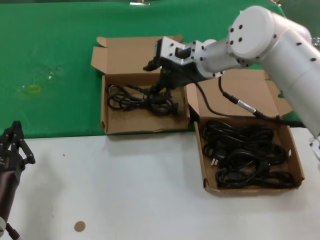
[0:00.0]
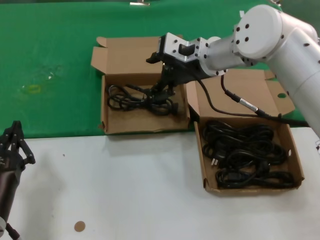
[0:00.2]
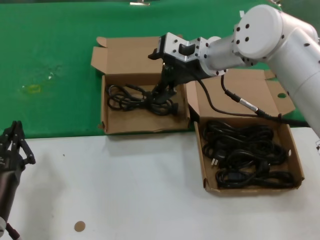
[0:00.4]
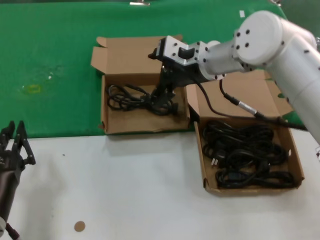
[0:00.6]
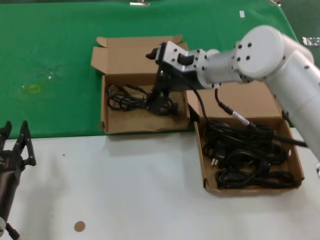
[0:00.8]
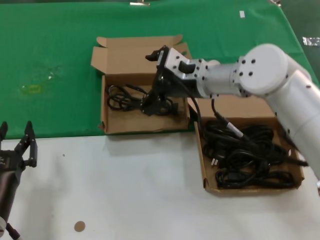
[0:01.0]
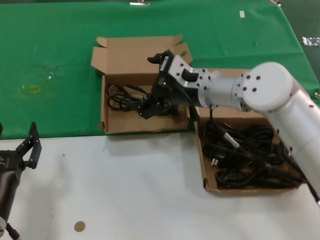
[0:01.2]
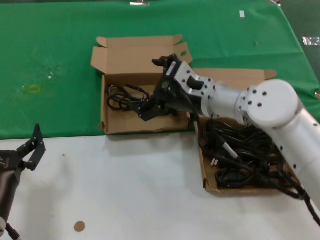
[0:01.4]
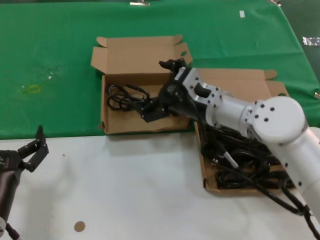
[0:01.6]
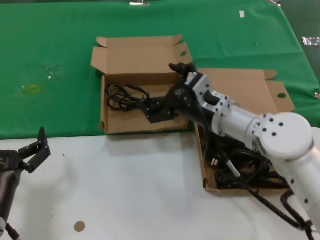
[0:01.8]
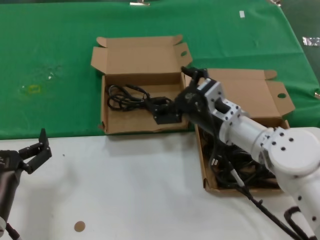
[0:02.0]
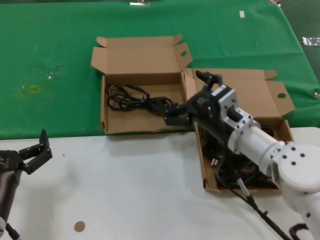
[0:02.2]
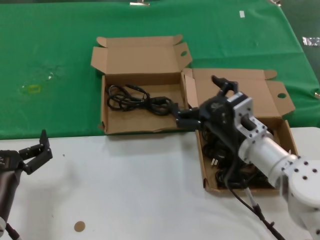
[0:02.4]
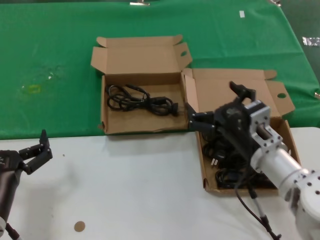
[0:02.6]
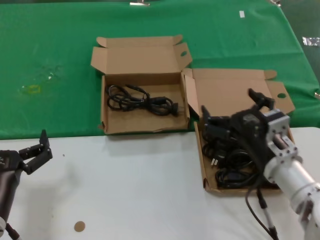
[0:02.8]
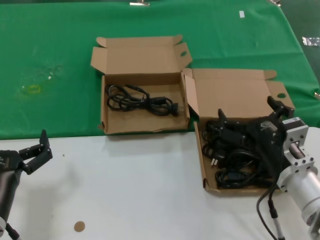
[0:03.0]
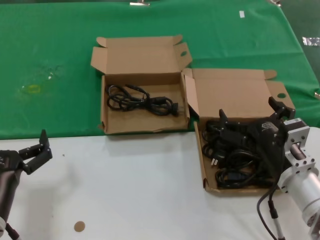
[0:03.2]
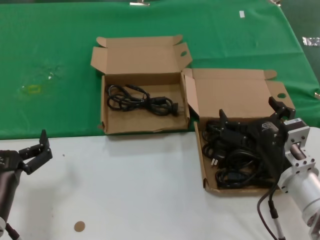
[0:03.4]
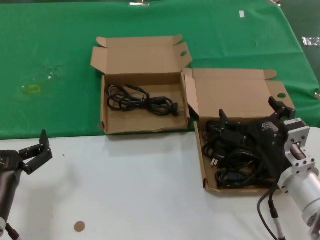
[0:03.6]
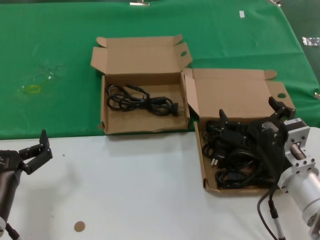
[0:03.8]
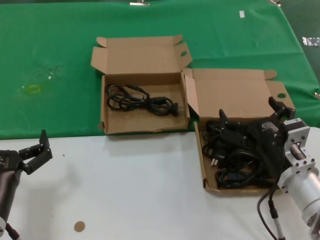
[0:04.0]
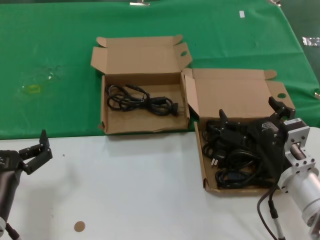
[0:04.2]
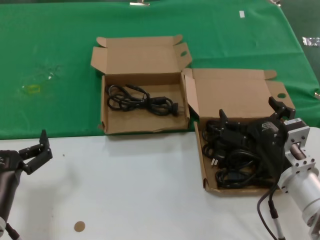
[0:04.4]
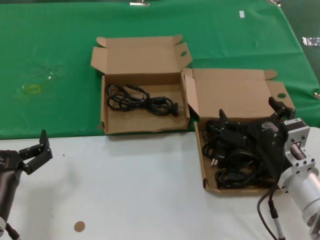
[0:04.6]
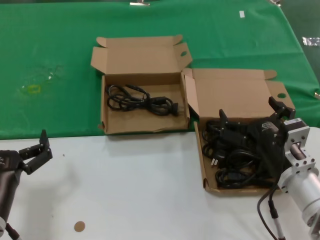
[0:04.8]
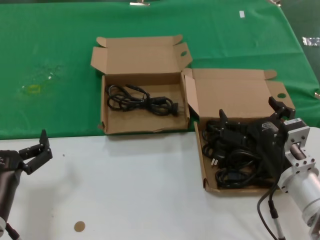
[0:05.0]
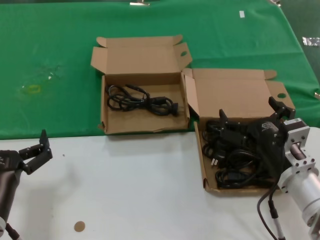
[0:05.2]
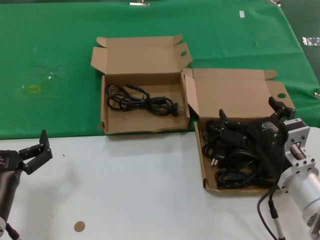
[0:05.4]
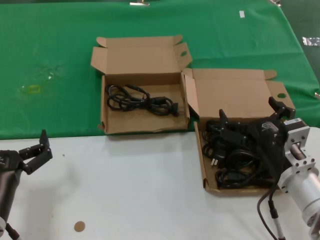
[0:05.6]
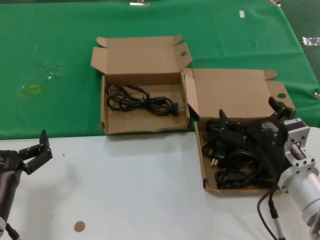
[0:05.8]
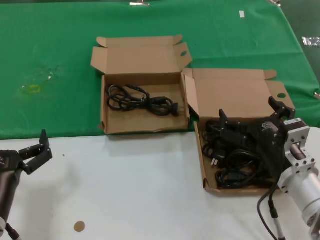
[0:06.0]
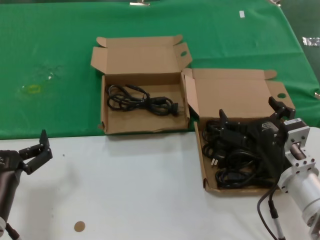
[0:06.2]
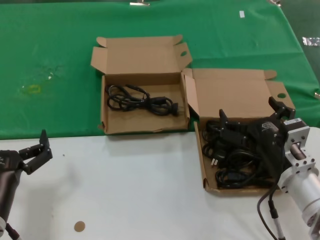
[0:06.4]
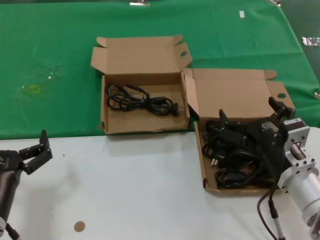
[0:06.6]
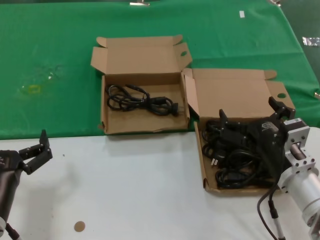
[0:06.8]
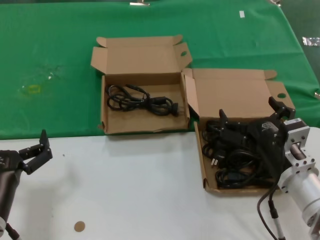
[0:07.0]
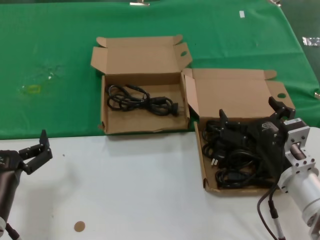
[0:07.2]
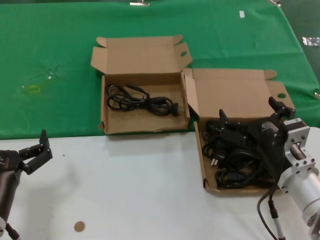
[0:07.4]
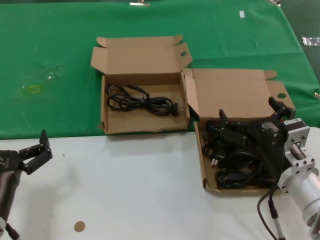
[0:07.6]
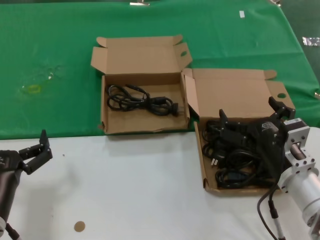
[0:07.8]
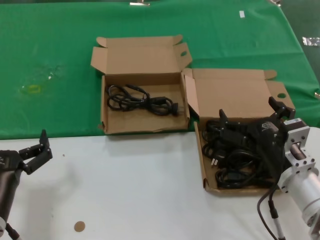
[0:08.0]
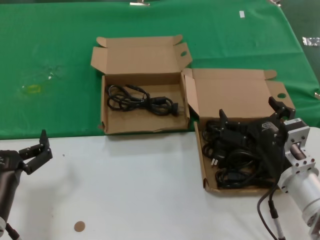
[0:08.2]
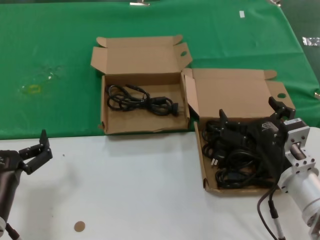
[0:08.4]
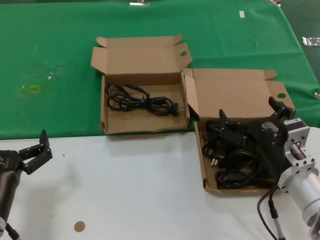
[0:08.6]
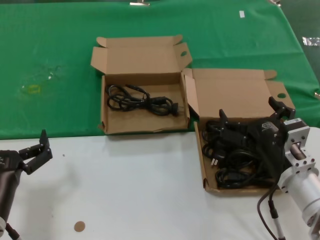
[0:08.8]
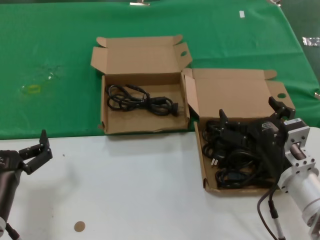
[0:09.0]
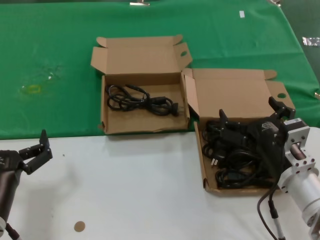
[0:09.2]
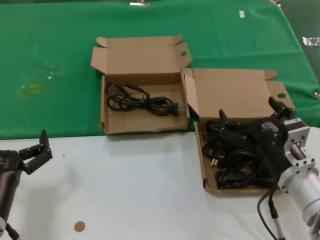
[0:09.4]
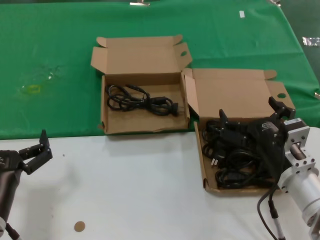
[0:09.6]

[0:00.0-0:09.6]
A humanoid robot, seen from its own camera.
Task of the whole recording: take the parts from the box containing them and put them into an empty box.
0:00.0 to 0:01.6: The right hand is displaced downward and backward by roughly 15 cm.
0:01.6 to 0:03.2: The right hand heads backward, downward and to the right, covering approximately 20 cm.
0:03.2 to 0:09.6: The two hands keep their place.

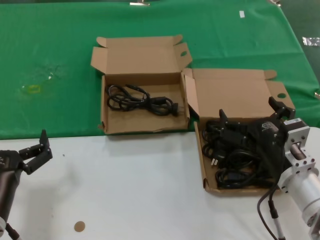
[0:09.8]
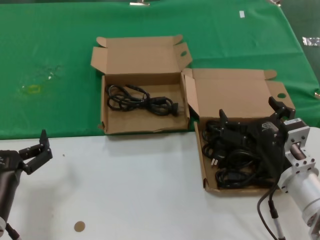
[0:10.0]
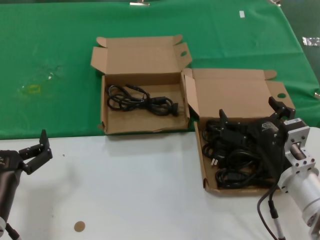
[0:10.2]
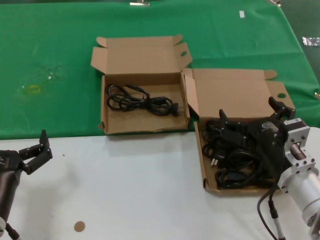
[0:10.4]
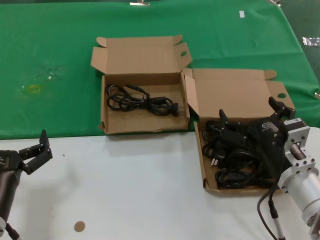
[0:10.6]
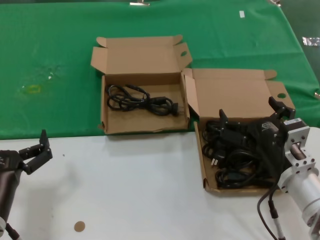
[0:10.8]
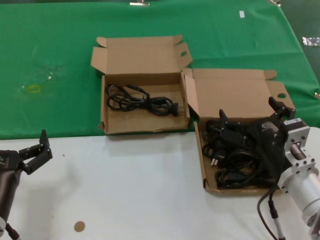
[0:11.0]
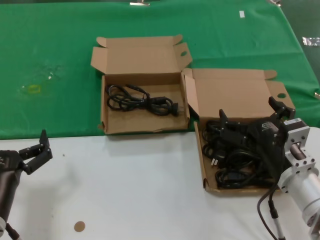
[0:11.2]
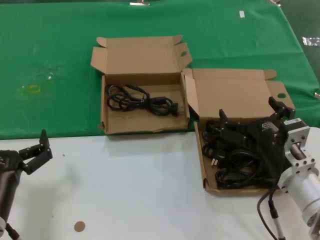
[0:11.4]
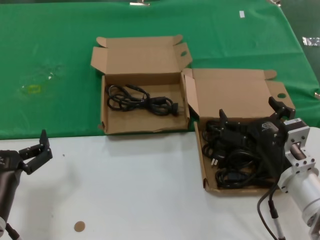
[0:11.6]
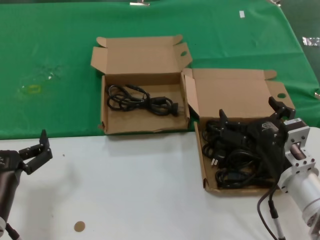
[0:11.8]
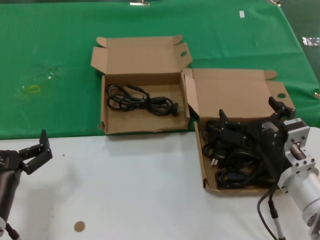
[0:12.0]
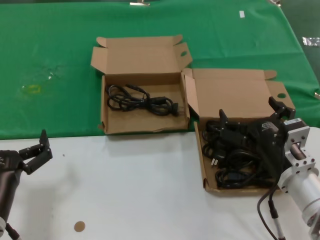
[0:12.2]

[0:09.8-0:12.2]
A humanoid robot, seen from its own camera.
Task of the whole recording: take the parts from the box containing them and put them into an empty box.
0:09.8 to 0:12.2: Neither hand changes place.
